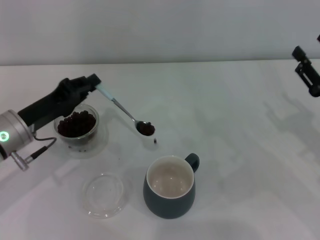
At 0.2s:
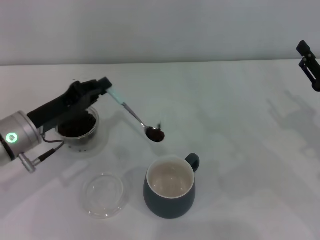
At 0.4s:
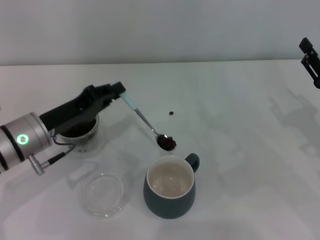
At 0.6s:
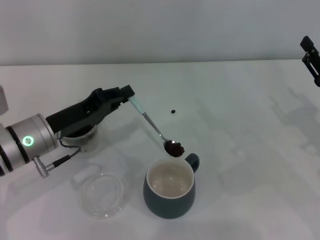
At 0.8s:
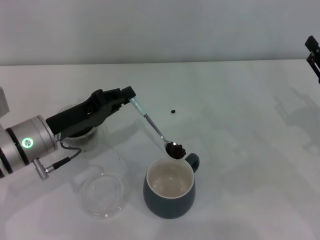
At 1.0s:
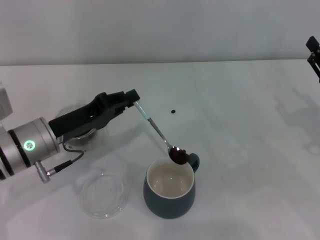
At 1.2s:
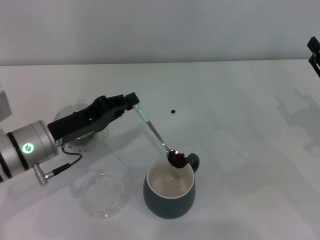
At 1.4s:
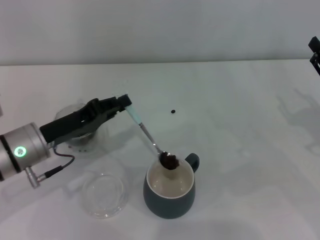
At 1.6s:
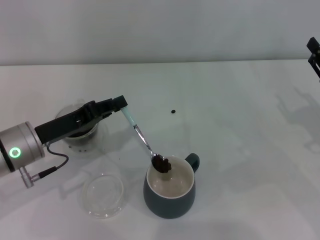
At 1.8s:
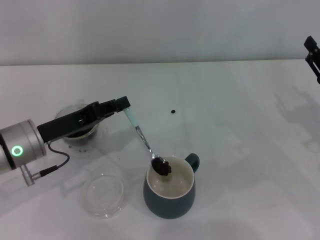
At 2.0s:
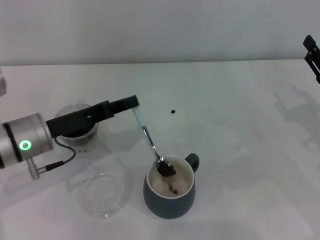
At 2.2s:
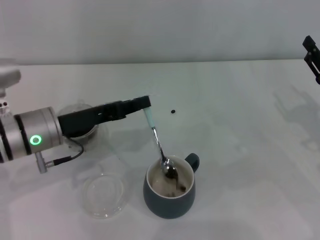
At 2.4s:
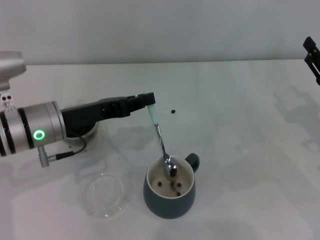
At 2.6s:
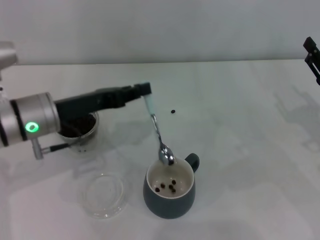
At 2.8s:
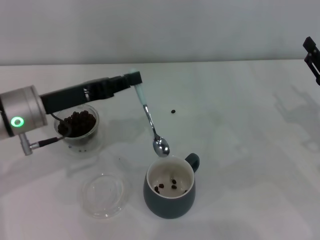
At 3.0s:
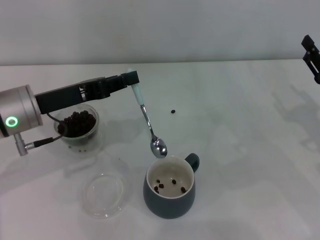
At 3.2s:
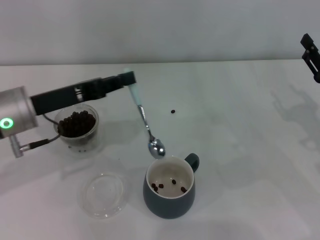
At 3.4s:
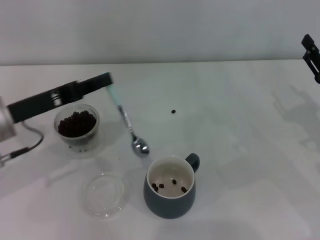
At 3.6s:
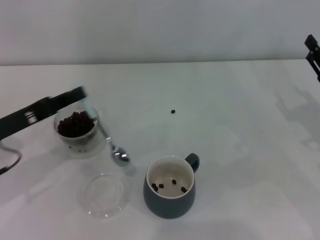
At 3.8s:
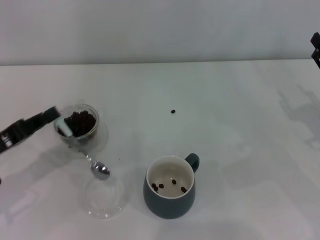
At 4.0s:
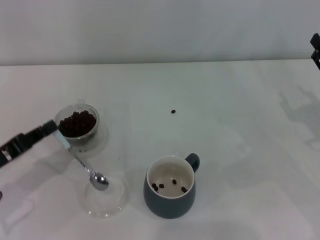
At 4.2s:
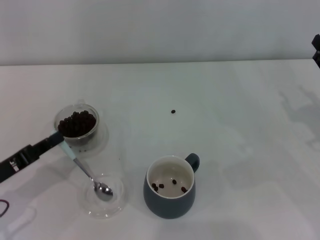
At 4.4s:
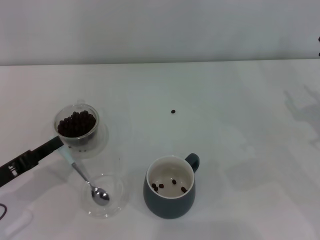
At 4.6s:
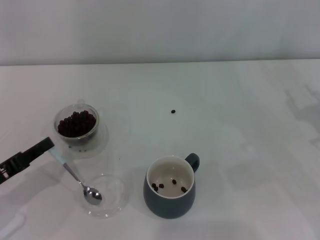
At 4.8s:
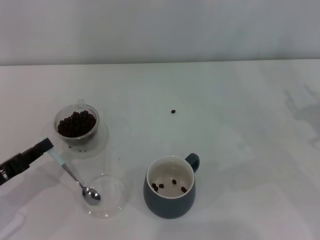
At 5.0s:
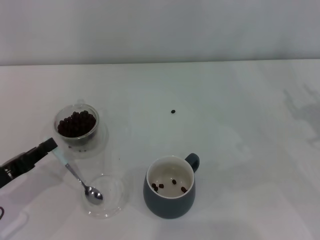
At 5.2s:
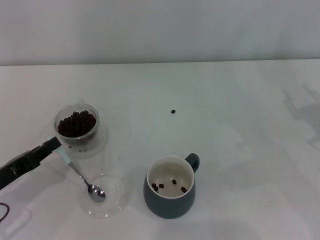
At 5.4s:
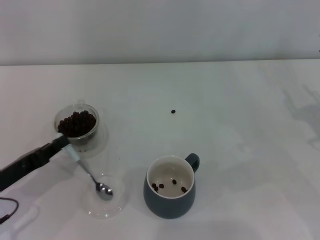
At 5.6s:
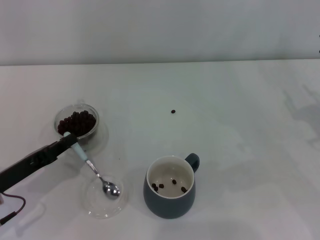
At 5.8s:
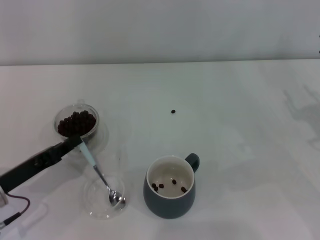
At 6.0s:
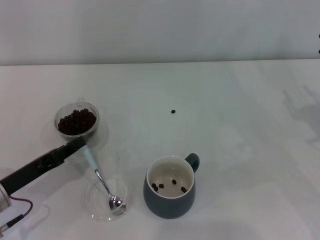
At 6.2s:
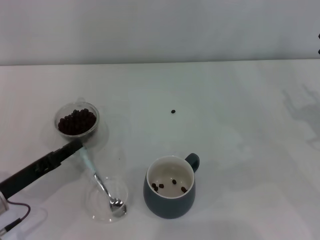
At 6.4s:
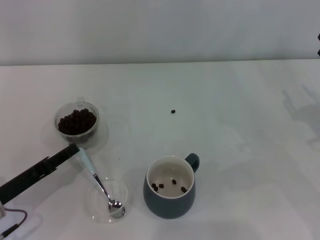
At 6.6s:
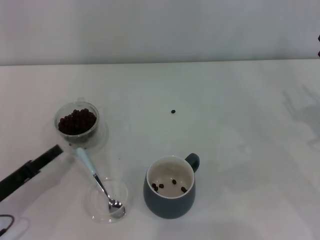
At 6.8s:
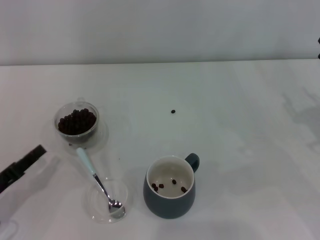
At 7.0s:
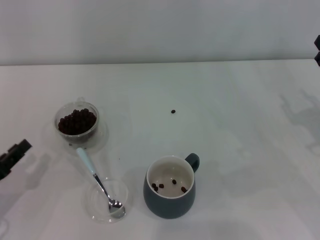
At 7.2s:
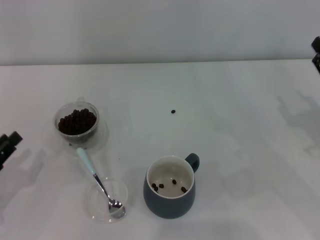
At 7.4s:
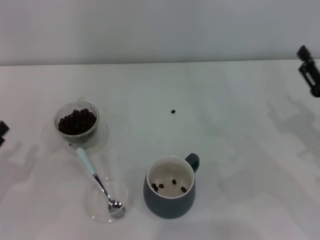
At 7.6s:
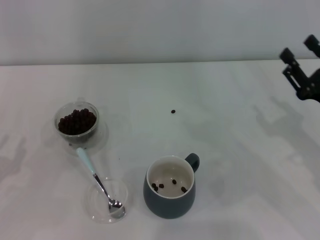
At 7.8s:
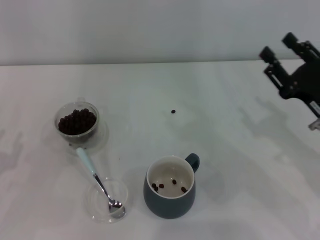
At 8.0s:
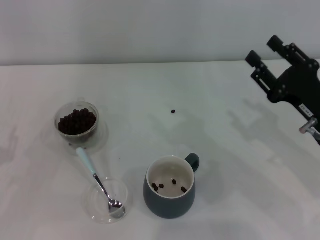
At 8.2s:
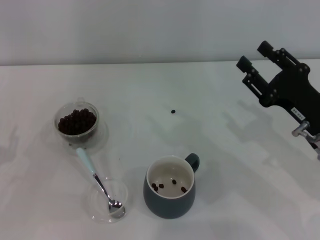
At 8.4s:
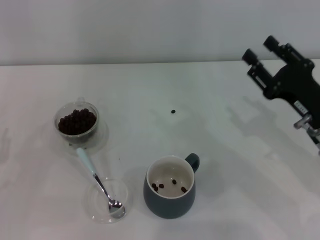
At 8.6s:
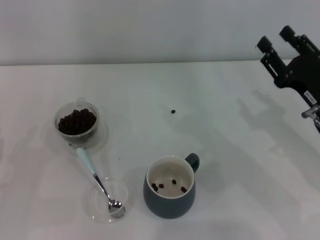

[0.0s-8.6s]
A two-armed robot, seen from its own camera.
Task of the whole recording: Use a blue spoon to take out the coffee beans from the glass and pour them into the gray cup.
Step, 0.0s to 3.0s: Scoop a spoonful of beans into the cup with the right gripper.
0.0s to 1.4s: The grippers stay close to where they were, moving slightly.
1.4s to 2.8s: The left gripper goes about 5 cm upward.
2.8s to 4.4s: The left gripper is displaced backward, to the left and downward by some 15 cm.
4.4s to 5.8s: The grippers make only small movements.
5.8s to 7.2s: The left gripper is displaced to the left by some 5 cm, and opens up.
7.2s to 8.6s: The right gripper travels to the left by about 5 cm.
